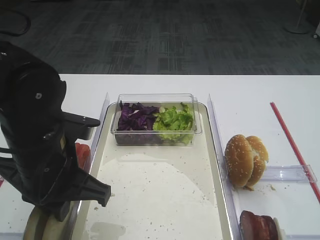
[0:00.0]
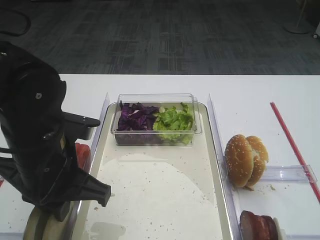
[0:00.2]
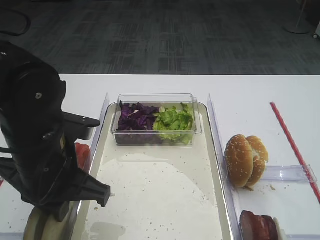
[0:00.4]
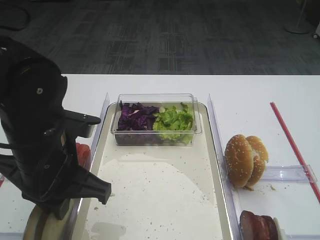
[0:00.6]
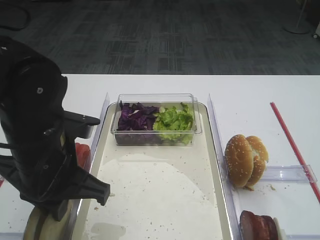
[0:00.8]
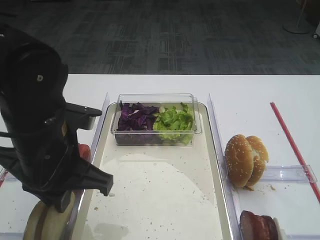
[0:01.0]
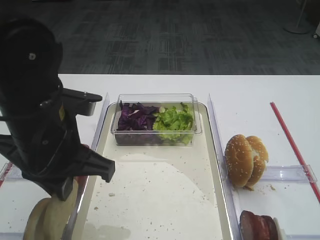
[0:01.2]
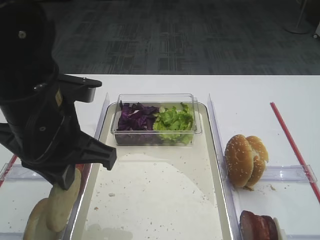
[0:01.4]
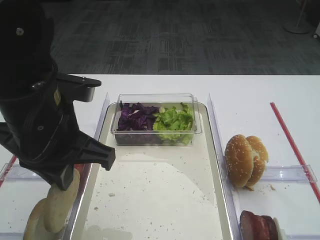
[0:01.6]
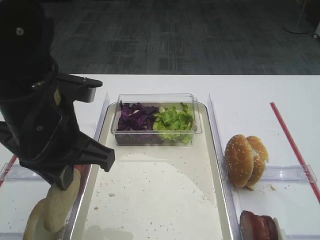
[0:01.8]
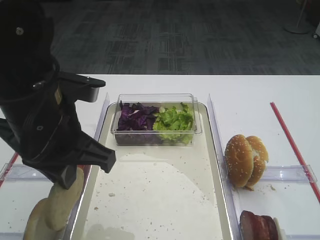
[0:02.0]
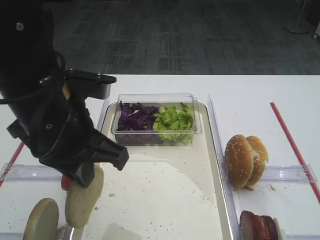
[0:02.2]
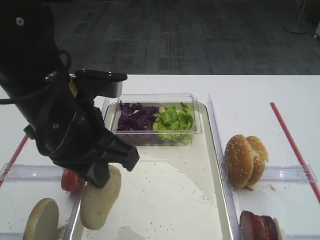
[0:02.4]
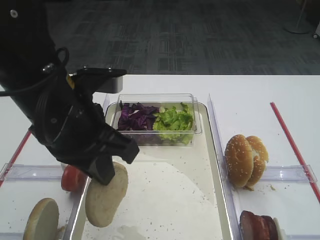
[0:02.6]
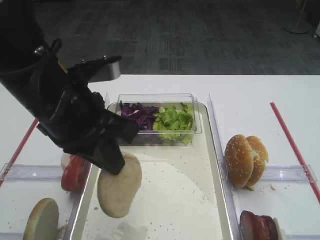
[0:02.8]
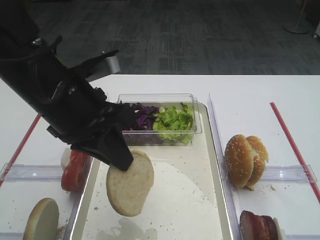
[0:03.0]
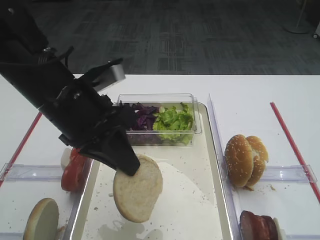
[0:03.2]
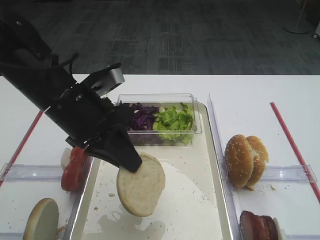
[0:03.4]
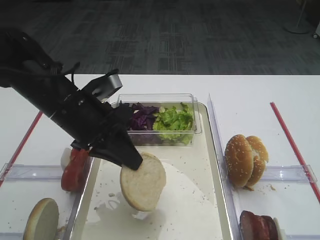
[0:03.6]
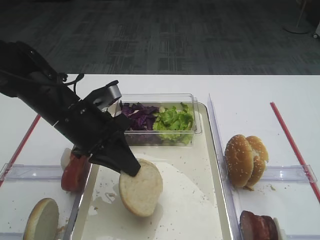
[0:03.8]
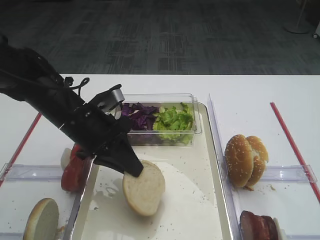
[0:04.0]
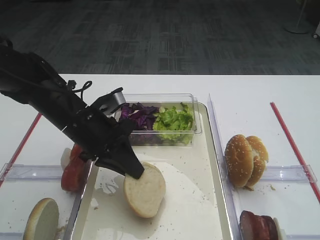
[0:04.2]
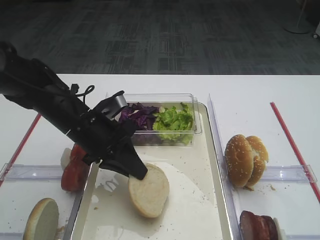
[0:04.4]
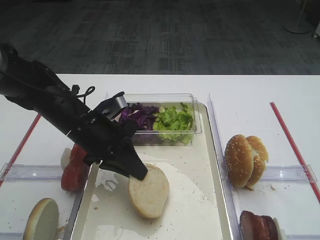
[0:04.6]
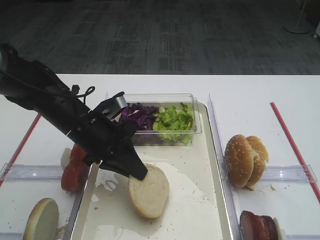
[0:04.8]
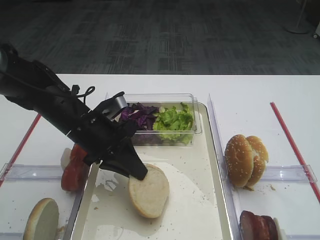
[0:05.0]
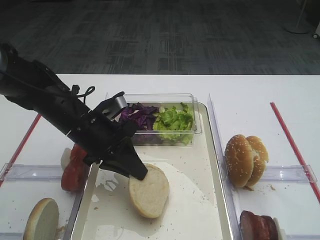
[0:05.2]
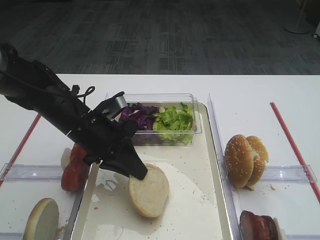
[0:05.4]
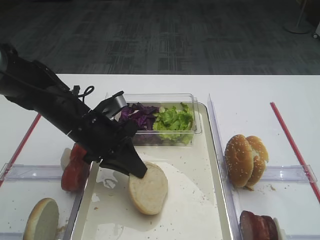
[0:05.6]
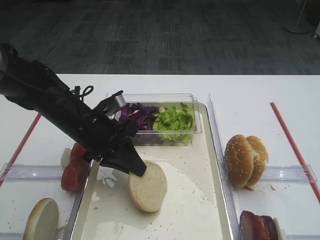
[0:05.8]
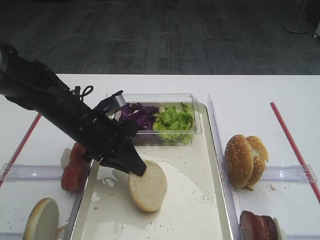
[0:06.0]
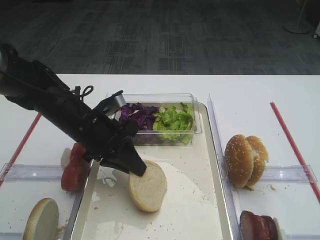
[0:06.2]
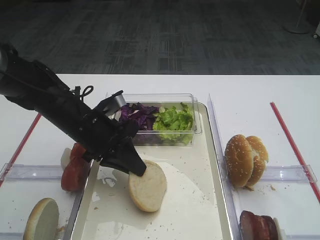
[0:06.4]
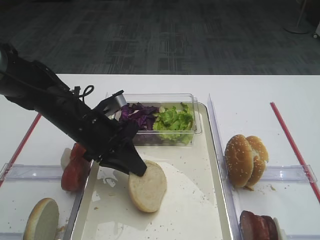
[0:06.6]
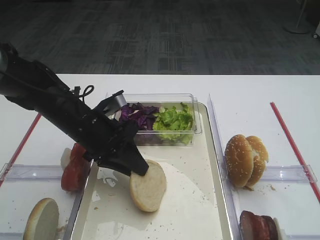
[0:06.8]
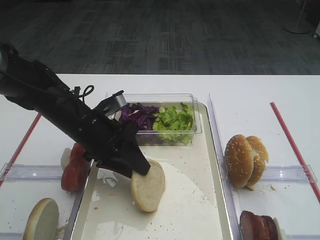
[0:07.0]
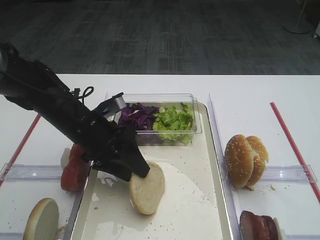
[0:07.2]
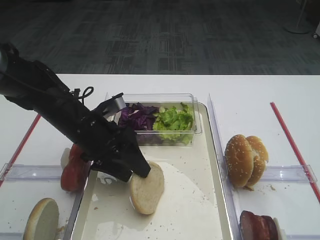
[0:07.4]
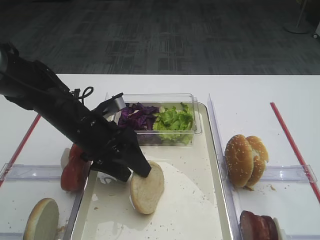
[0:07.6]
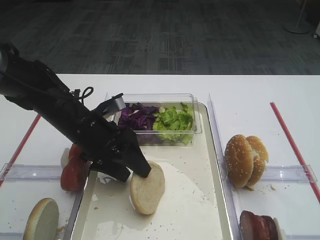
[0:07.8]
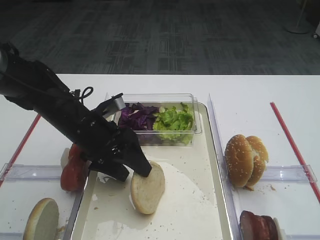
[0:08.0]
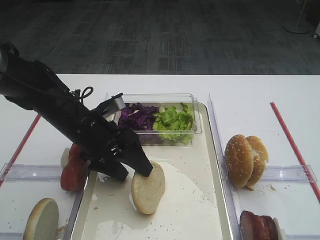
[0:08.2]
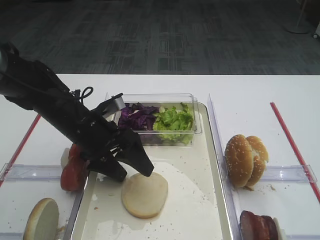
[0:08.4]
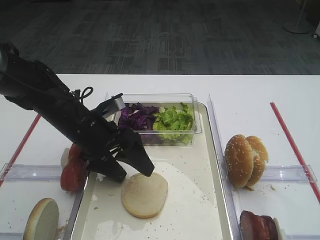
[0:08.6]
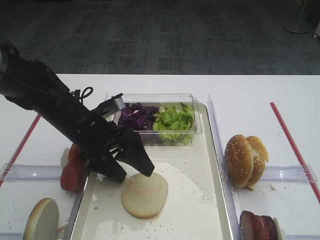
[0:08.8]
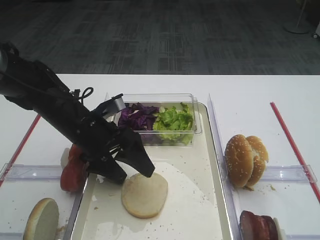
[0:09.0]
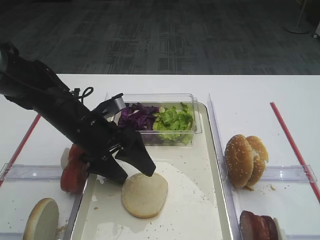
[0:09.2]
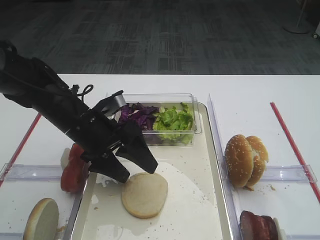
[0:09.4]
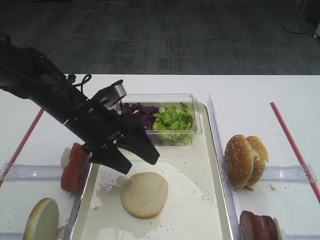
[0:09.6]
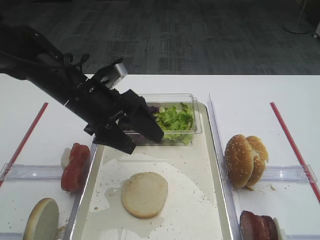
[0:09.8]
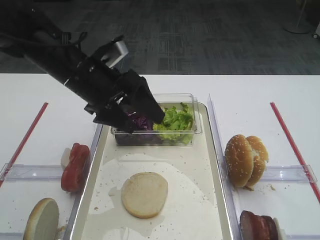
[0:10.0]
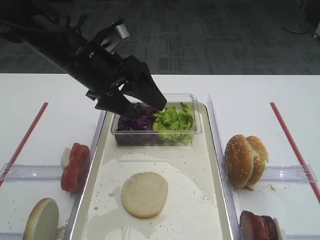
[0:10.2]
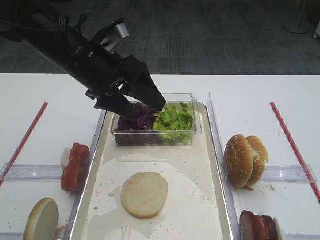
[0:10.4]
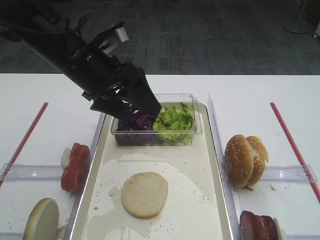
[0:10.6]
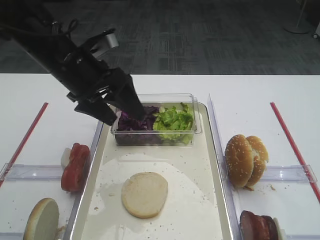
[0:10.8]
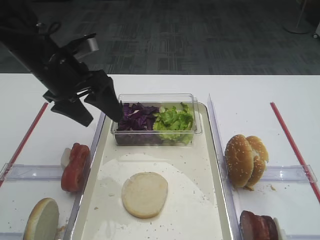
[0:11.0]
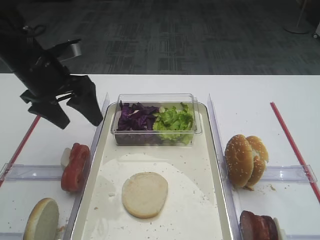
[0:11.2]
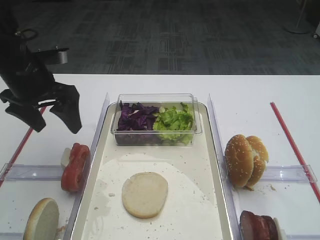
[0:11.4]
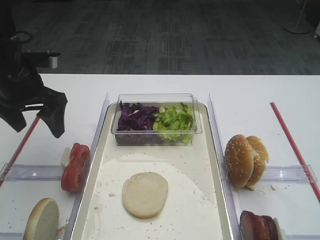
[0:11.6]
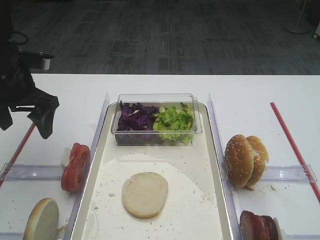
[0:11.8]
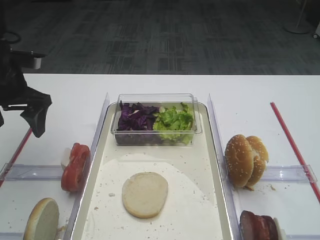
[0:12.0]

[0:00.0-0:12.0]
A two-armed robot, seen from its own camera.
Step, 0:01.4 to 0:08.4: Place the bread slice on the tray with the left gripper.
0:00.0 to 0:01.6: The left gripper moves upward, about 5 cm.
0:03.0 to 0:04.4: The left gripper heads downward and forward, covering approximately 15 cm.
0:04.4 to 0:06.0: The two grippers keep their place.
0:06.0 to 0:07.6: The left gripper opens its fingers.
0:07.6 to 0:09.0: Neither gripper changes place.
0:09.0 to 0:10.4: The left gripper goes about 10 cm upward.
0:10.4 to 0:12.0: The left gripper heads to the left, covering approximately 15 cm.

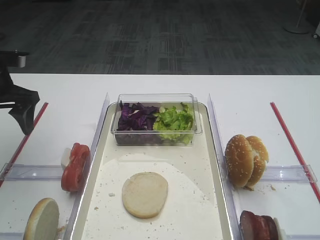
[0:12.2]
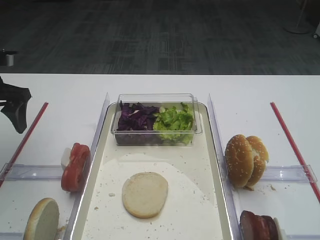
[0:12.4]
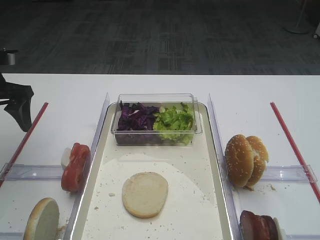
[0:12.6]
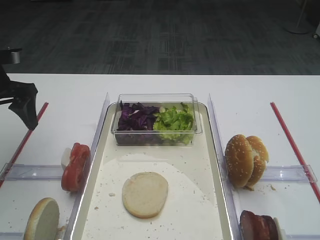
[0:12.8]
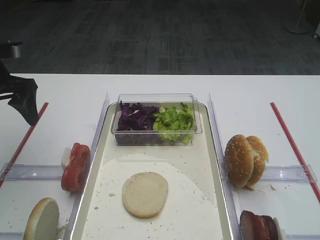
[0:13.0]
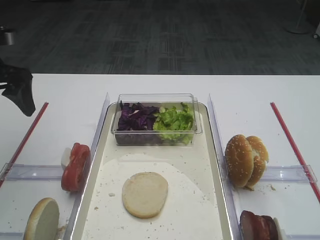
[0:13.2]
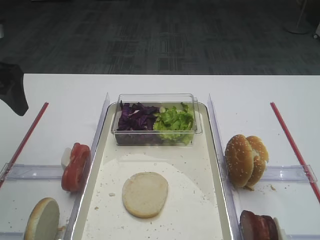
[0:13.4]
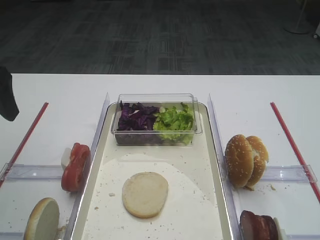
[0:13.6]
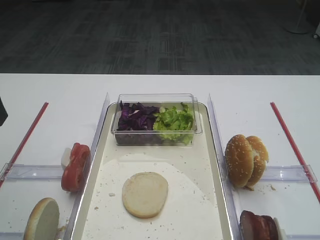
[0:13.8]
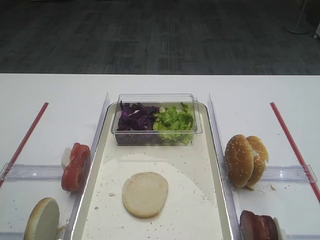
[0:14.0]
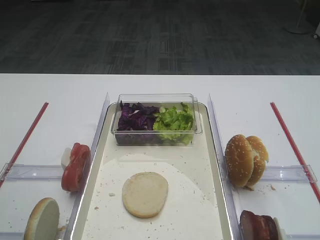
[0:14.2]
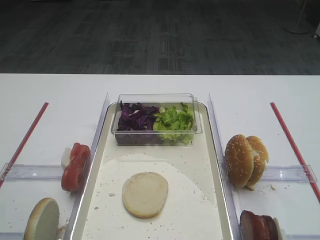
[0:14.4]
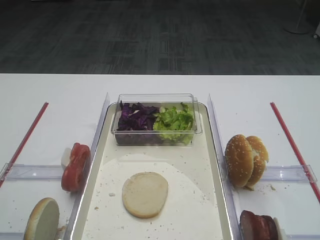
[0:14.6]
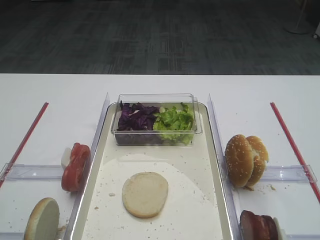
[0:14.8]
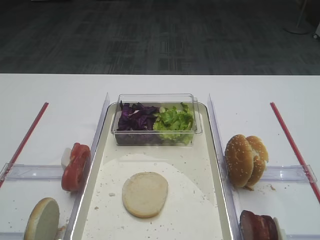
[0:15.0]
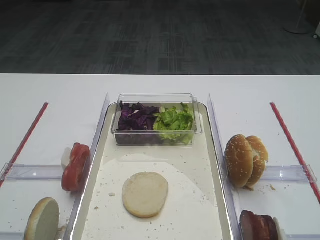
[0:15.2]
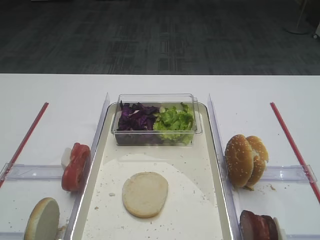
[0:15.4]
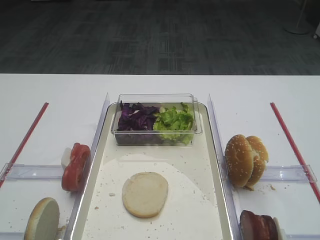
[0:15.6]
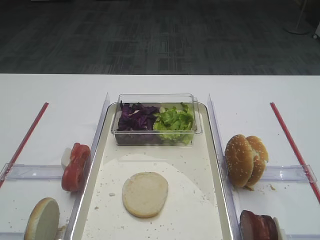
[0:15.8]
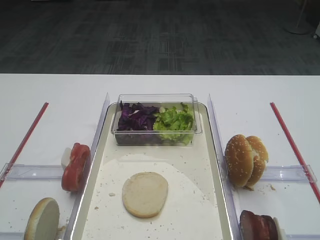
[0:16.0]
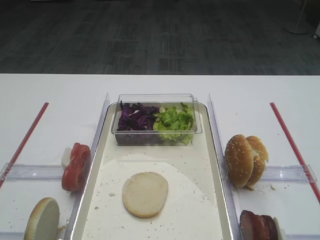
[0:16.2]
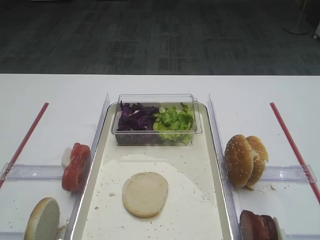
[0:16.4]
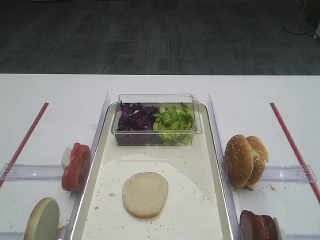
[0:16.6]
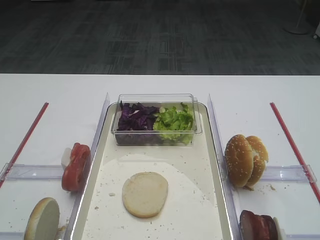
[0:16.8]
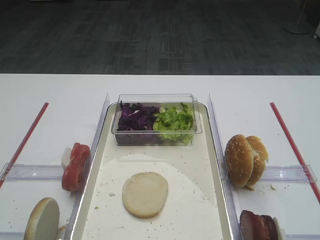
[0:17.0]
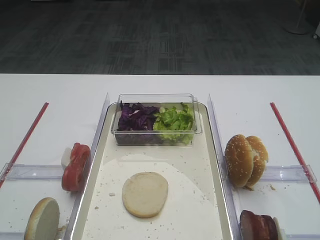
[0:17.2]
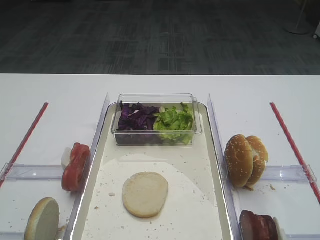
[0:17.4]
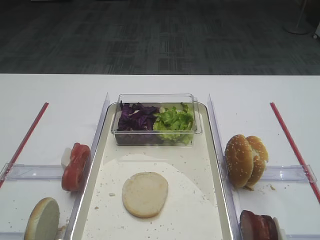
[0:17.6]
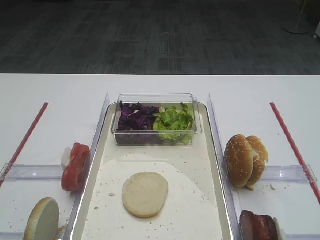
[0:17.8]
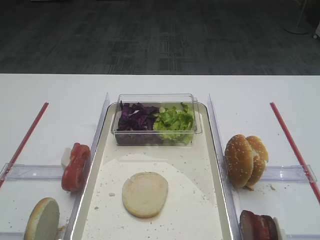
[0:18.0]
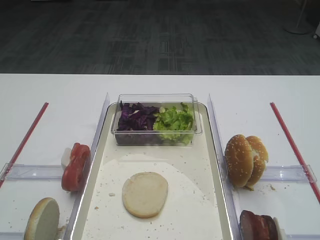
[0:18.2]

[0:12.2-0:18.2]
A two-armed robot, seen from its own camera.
0:12.2 to 0:13.8: The left gripper heads backward and upward, covering some 15 cm.
0:16.6 to 0:18.2: Neither gripper changes place.

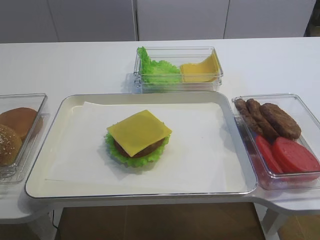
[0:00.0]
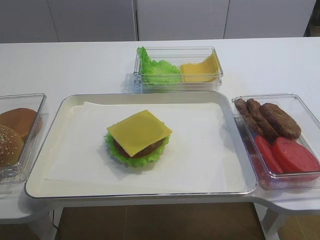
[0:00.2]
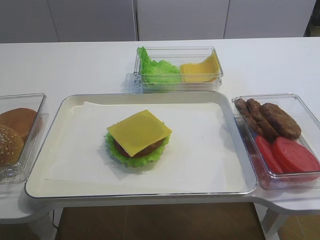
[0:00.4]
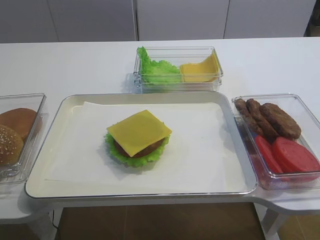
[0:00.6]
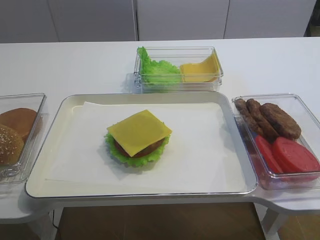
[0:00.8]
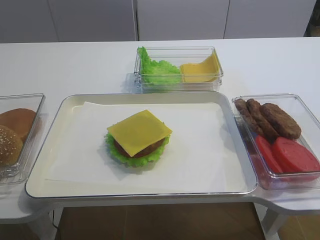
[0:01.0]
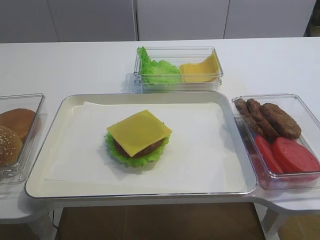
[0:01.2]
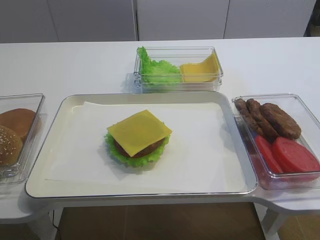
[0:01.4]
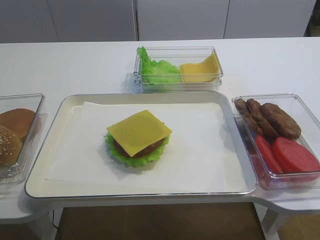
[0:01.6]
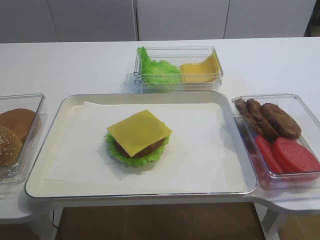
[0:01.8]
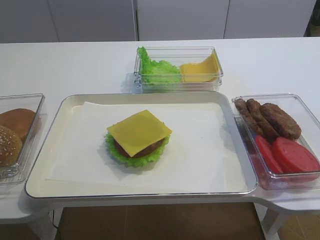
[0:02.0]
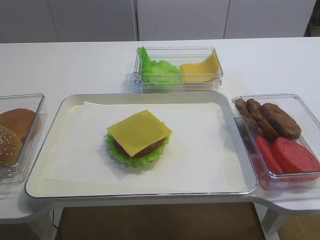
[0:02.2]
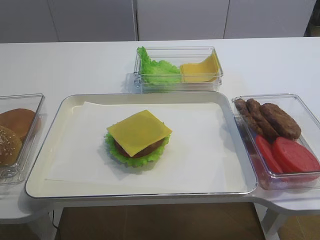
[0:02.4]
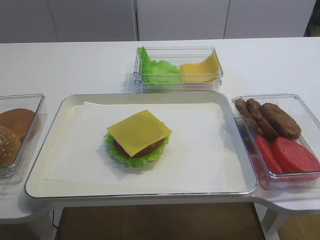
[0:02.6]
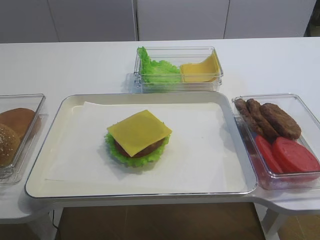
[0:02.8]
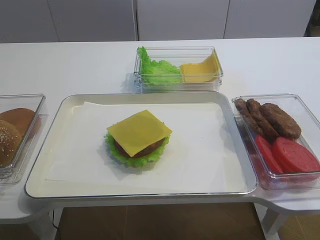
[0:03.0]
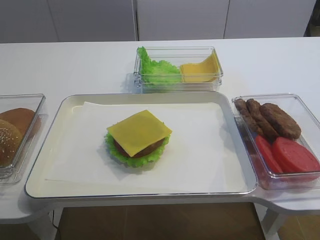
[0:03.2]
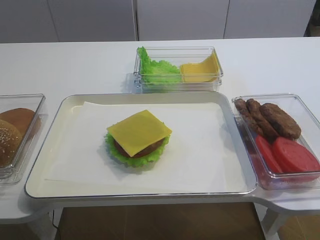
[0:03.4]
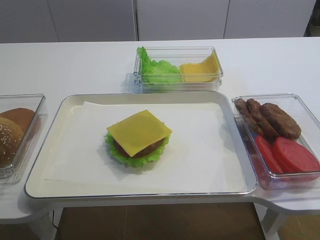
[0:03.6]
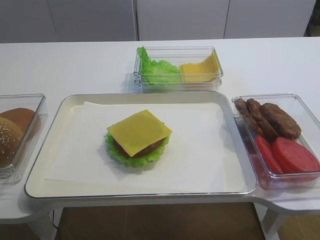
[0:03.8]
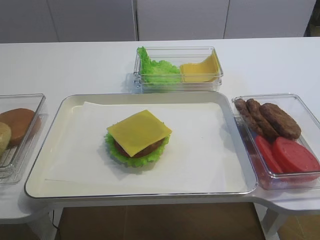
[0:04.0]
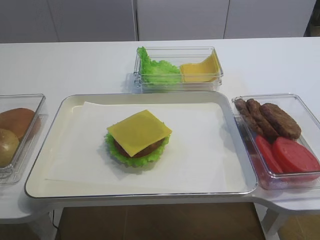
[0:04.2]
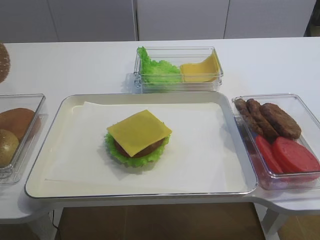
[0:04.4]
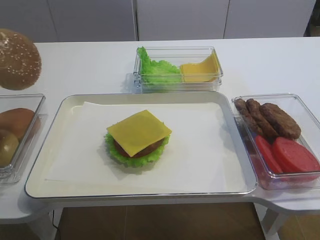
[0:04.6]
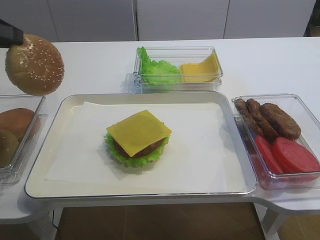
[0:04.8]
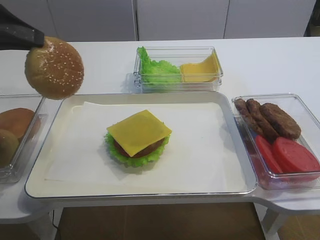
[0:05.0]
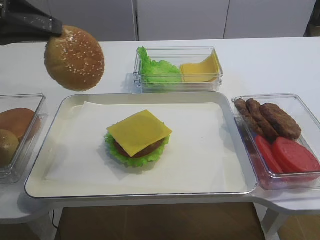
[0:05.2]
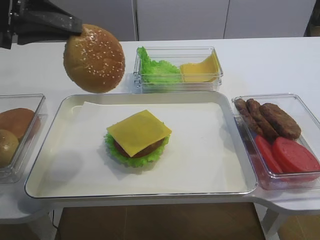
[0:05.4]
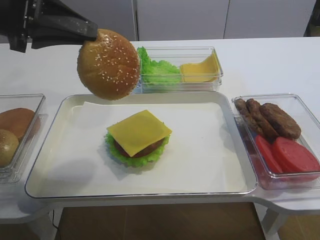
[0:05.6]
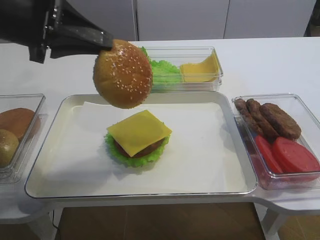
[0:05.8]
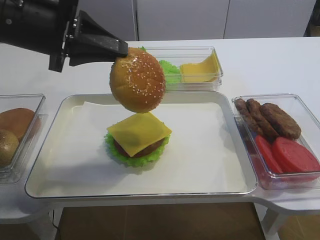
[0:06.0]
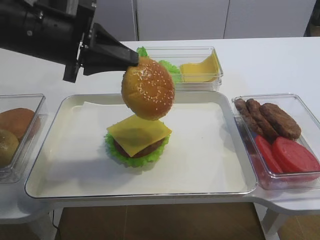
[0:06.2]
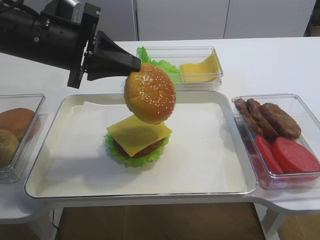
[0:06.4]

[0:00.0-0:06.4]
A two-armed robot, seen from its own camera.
0:03.2 to 0:04.8: The left gripper moves to the right and upward, some 15 cm.
0:04.8 to 0:06.4: The left gripper moves to the right, about 15 cm.
